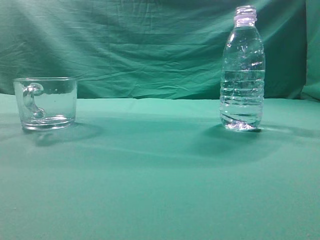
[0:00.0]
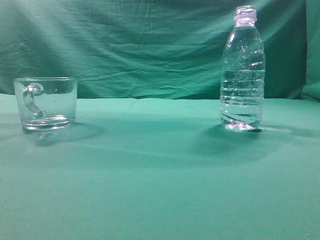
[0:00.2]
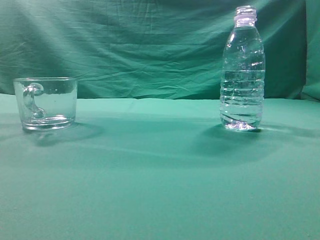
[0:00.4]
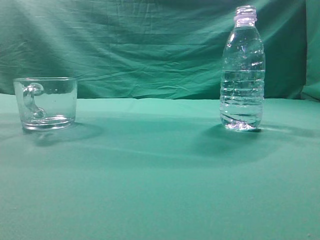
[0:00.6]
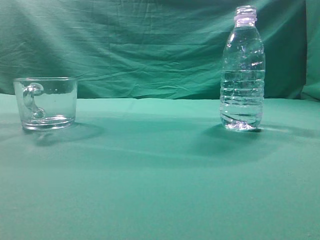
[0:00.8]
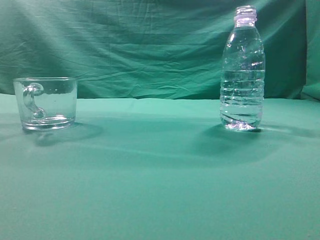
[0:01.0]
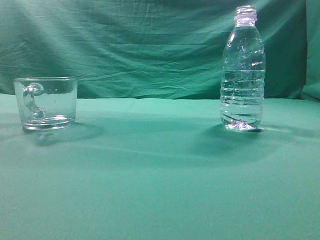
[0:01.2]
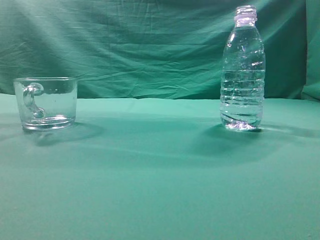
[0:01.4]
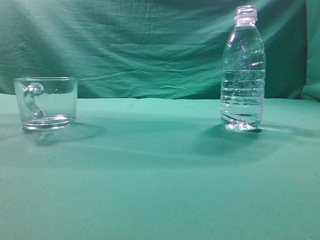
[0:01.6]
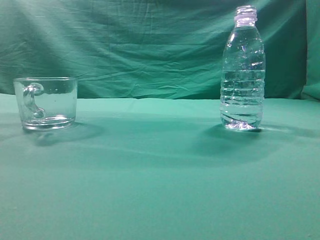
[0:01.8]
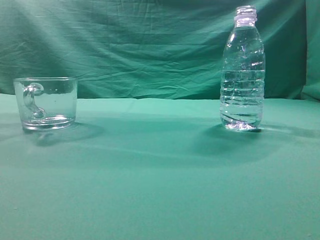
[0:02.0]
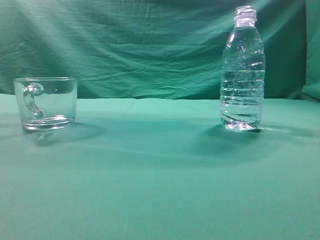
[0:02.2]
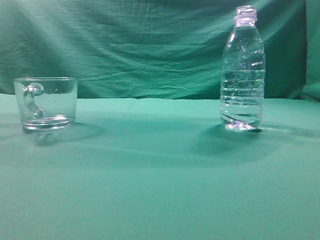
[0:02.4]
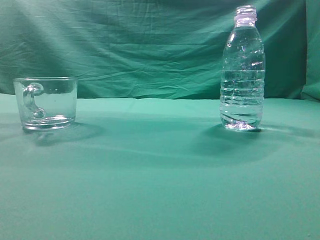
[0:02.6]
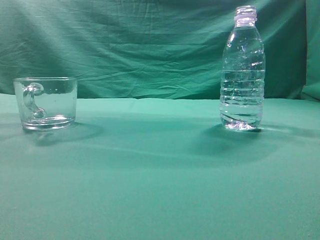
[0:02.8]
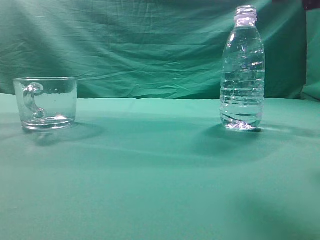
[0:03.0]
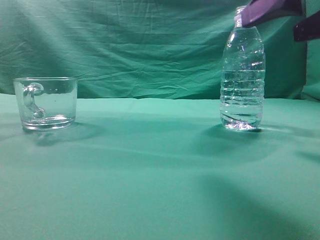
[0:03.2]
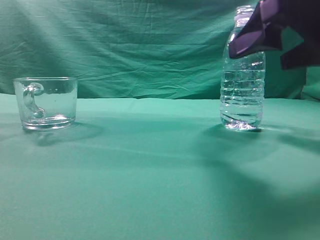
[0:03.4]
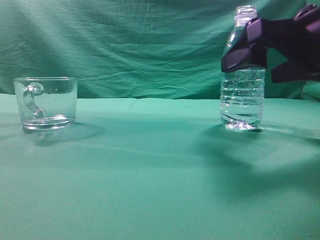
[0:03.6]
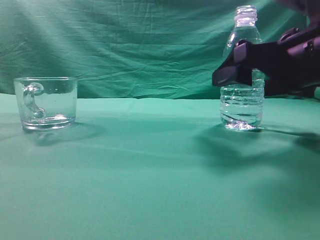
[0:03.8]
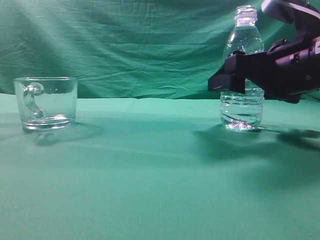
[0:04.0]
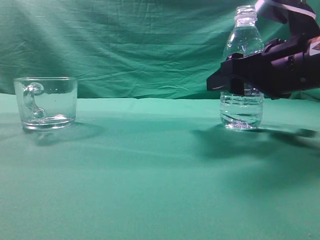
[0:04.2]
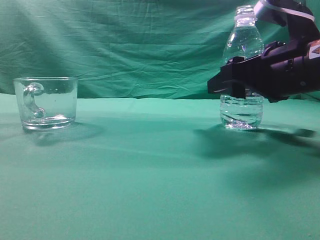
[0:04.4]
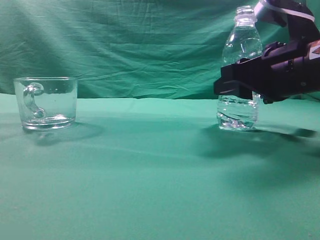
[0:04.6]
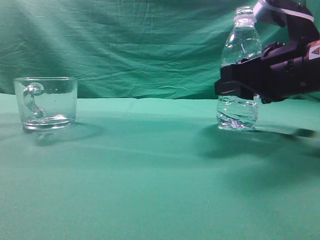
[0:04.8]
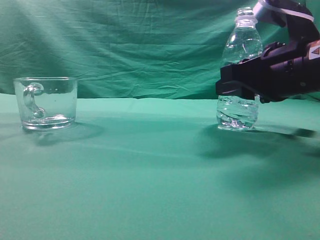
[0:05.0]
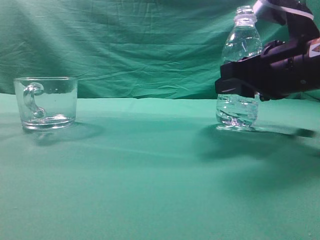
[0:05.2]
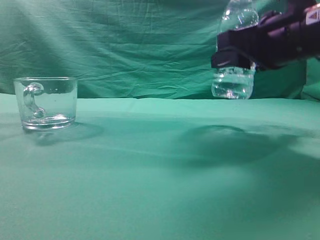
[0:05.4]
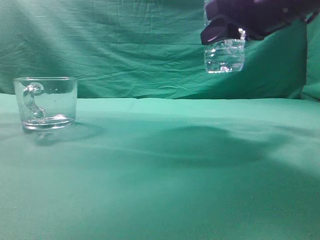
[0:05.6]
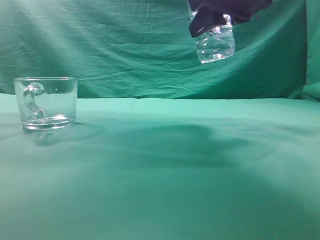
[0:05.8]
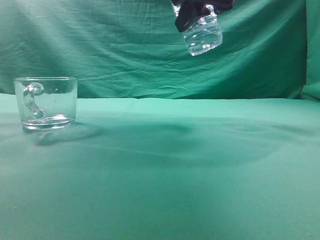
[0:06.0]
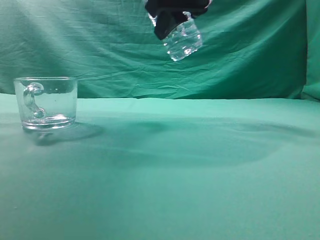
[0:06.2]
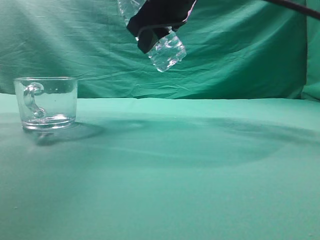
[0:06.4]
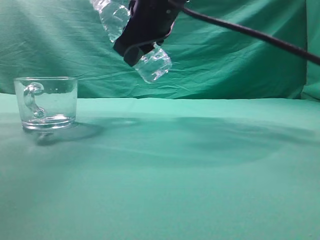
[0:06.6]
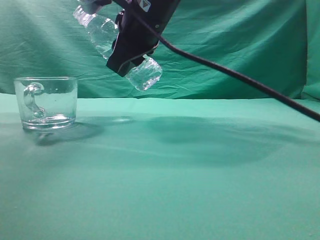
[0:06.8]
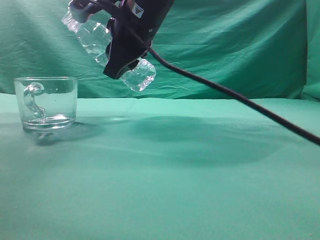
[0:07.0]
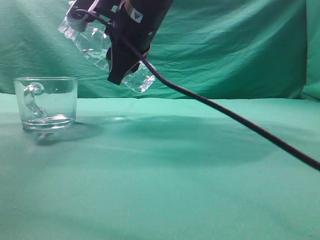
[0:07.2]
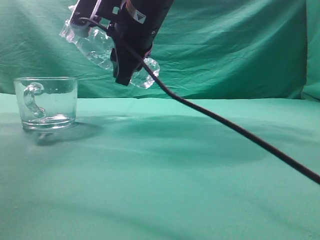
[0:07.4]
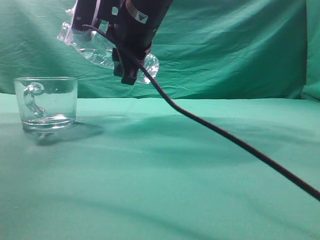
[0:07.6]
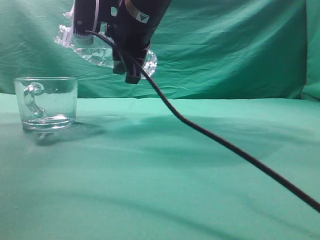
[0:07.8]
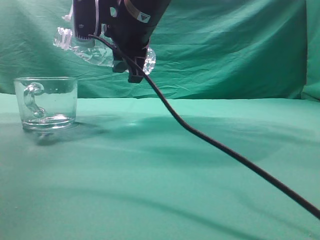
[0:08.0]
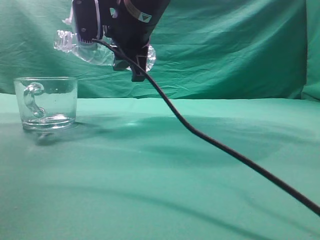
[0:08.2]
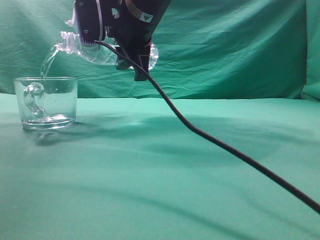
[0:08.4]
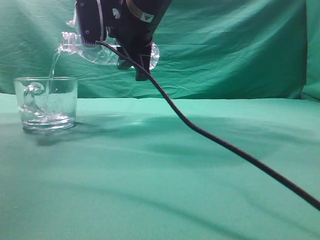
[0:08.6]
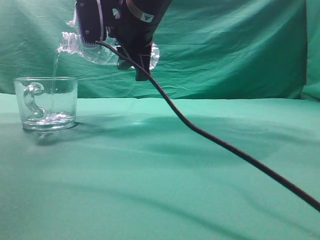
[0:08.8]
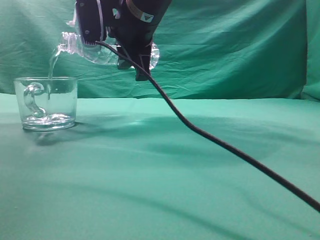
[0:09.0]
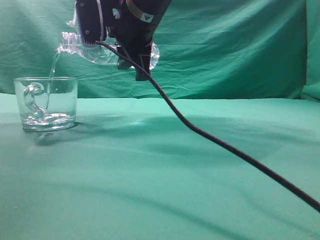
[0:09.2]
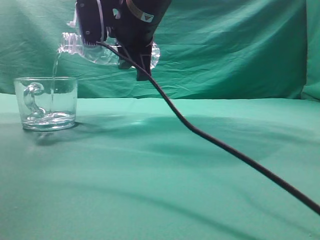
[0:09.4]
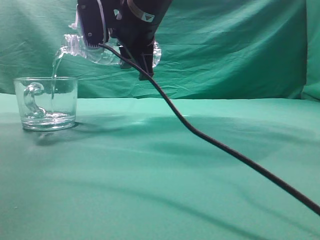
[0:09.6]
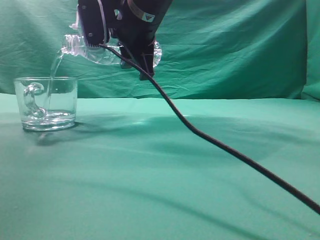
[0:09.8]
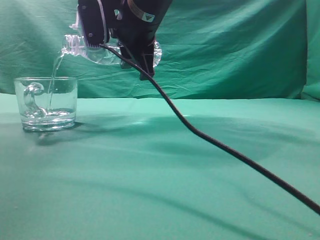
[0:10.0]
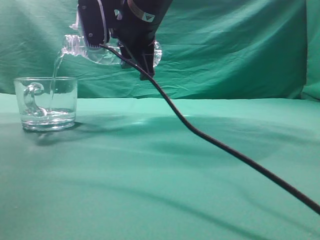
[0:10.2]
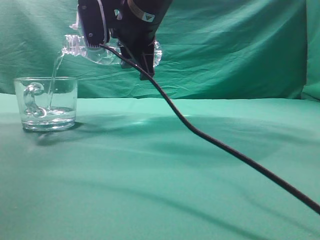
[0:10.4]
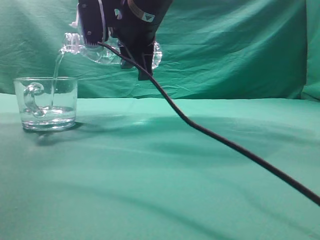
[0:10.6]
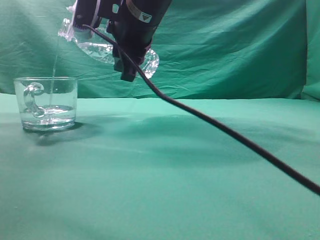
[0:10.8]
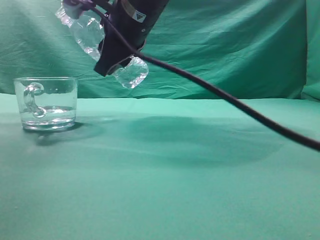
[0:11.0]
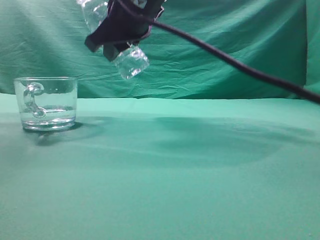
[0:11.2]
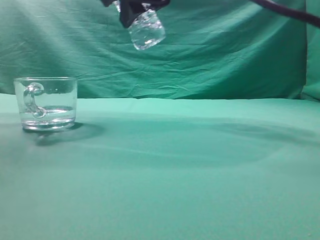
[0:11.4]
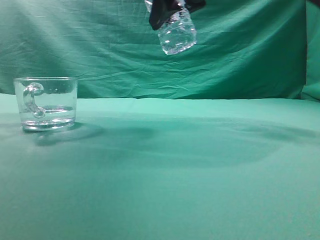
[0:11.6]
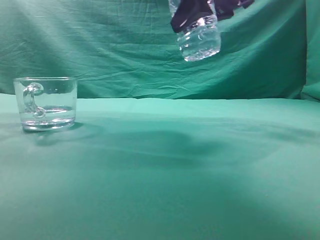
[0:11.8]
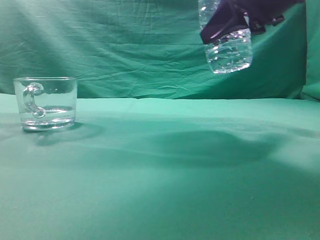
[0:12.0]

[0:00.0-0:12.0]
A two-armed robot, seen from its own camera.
Task of the whole recording: pick up the water bottle and pour the water in it into the glass.
Step, 0:00.0 to 0:05.4: Grasp the mineral water bottle.
Step, 0:05.6 to 0:11.0: Pour water into the teacup.
0:01.6 to 0:03.0: The right gripper shifts about 15 cm forward and to the left, and opens its fingers.
0:03.0 to 0:04.4: The right gripper goes some 15 cm downward and forward.
0:04.4 to 0:06.0: The right gripper heads upward and to the left, covering roughly 15 cm.
0:06.0 to 0:07.6: The right gripper travels to the left and downward by some 15 cm.
0:07.6 to 0:09.0: The grippers make only small movements.
0:09.0 to 0:10.4: Neither gripper changes place.
0:10.4 to 0:12.0: The right gripper travels to the right by some 20 cm.

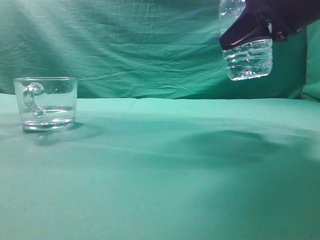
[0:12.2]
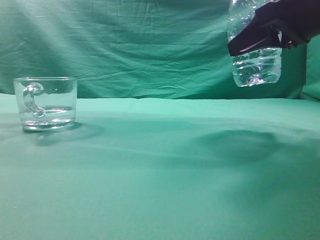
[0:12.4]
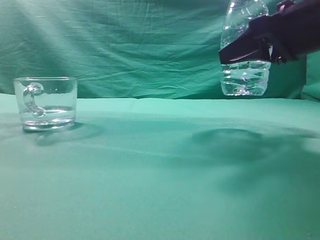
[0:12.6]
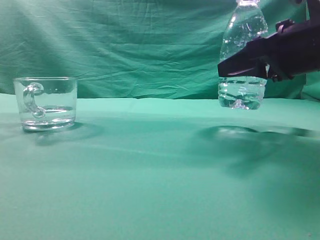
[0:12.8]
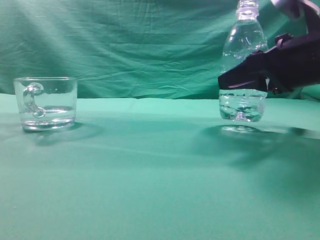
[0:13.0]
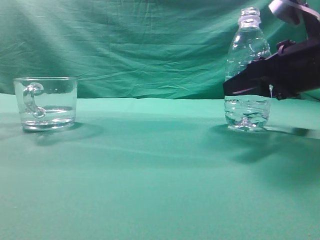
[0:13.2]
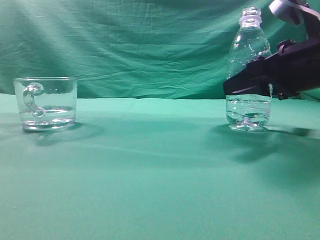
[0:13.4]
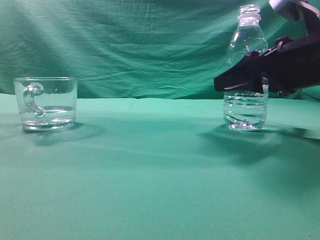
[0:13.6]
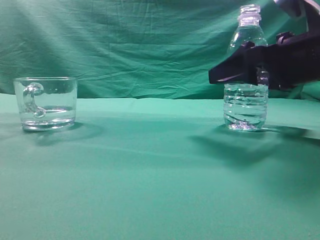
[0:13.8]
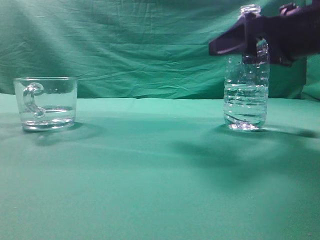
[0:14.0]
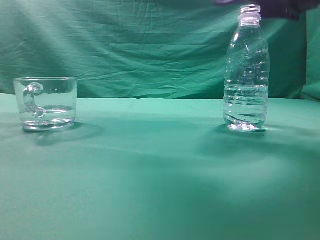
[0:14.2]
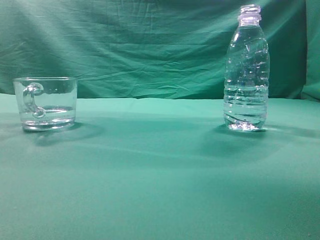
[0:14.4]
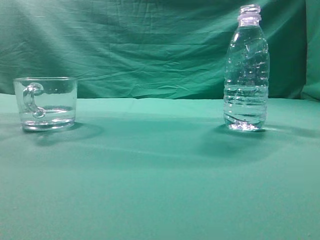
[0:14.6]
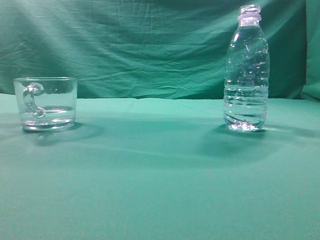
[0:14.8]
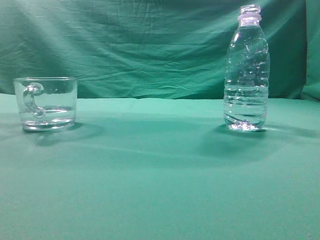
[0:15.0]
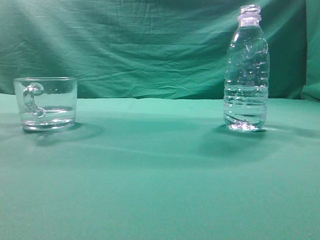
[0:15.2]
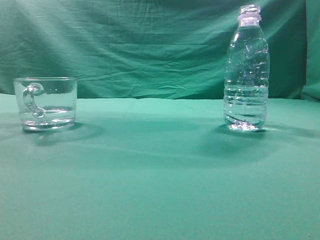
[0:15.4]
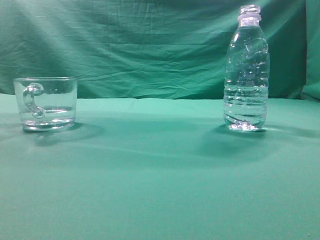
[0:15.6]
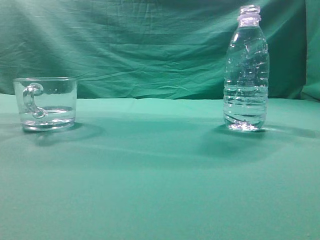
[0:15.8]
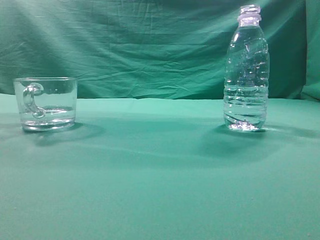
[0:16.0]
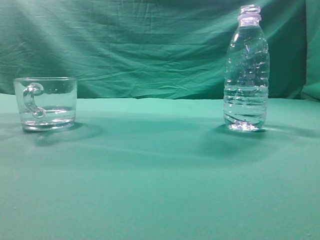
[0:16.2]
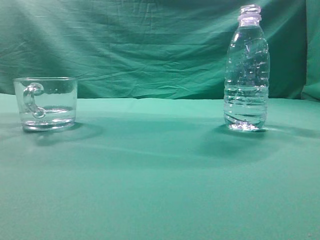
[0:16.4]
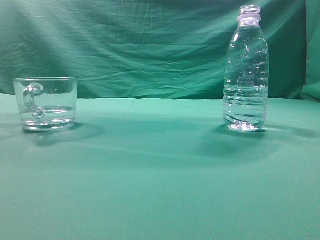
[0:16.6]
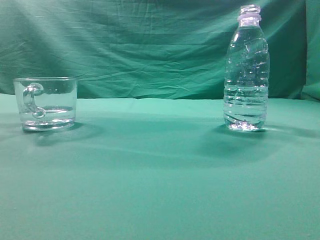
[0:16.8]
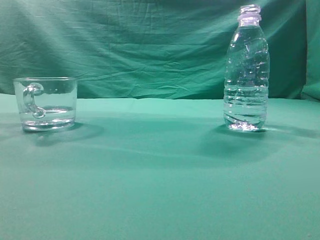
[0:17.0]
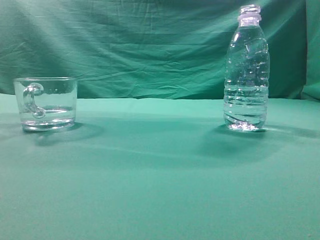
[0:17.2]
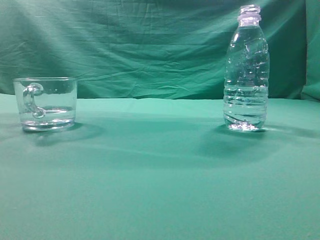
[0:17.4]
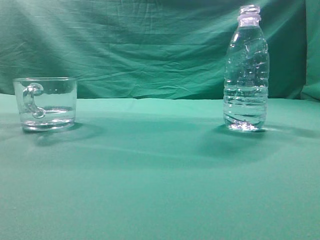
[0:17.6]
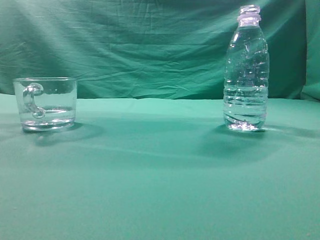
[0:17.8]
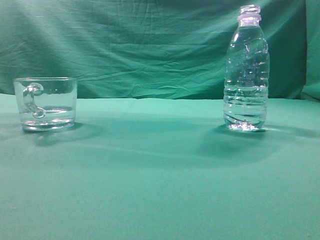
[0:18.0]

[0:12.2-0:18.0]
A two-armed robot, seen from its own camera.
Task of the whole recording: pick up the water bottle and pour the water in it into the glass.
0:12.2 to 0:13.6: The right gripper moves downward, approximately 10 cm.
0:13.6 to 0:15.0: The right gripper goes some 30 cm upward and backward, and closes up.
